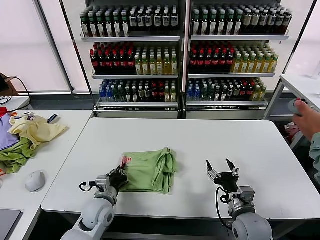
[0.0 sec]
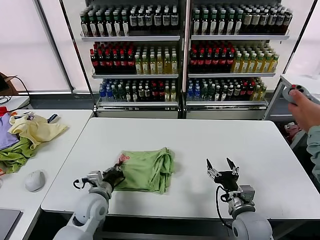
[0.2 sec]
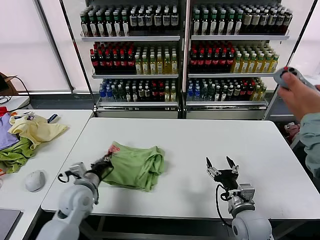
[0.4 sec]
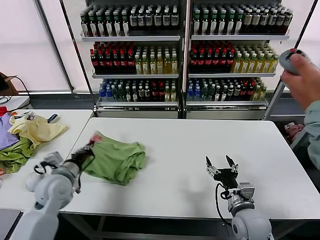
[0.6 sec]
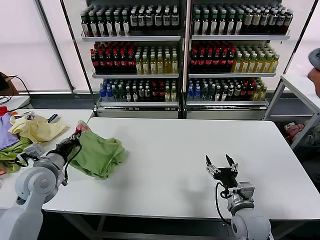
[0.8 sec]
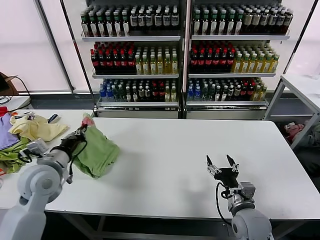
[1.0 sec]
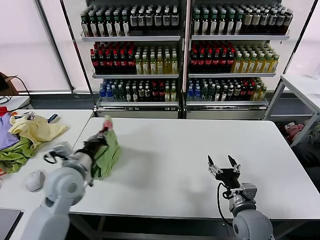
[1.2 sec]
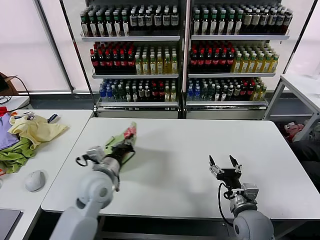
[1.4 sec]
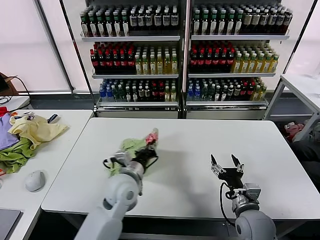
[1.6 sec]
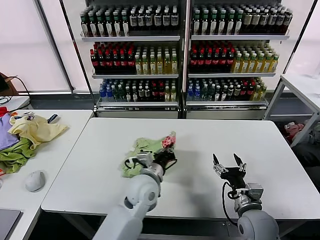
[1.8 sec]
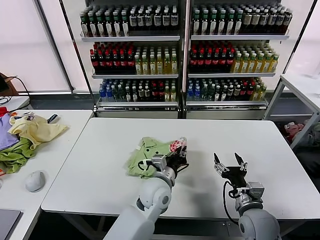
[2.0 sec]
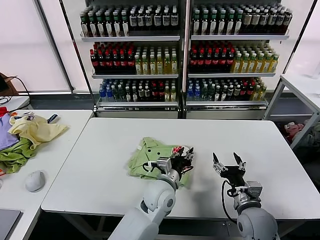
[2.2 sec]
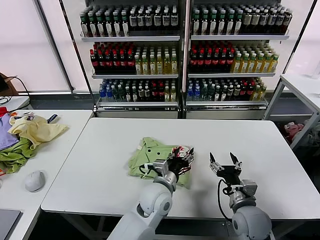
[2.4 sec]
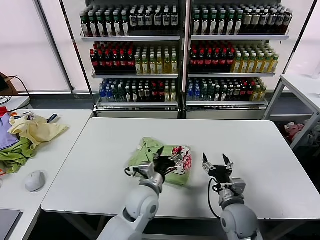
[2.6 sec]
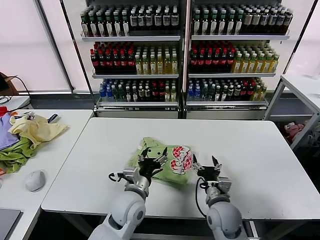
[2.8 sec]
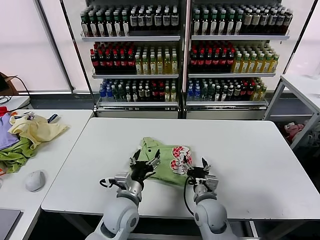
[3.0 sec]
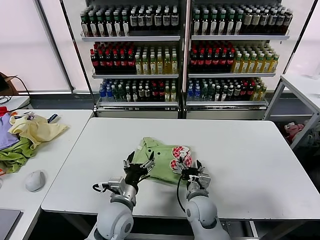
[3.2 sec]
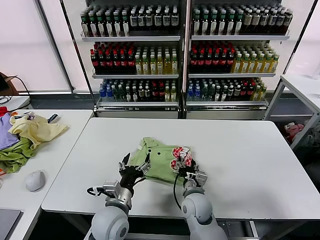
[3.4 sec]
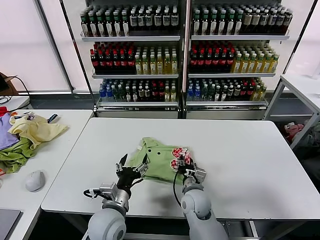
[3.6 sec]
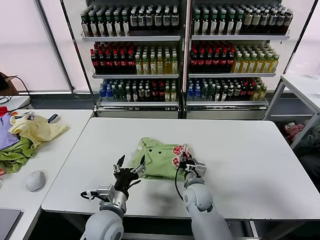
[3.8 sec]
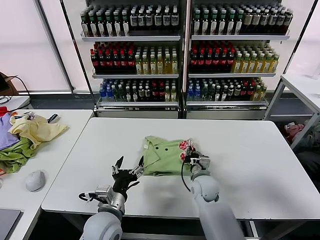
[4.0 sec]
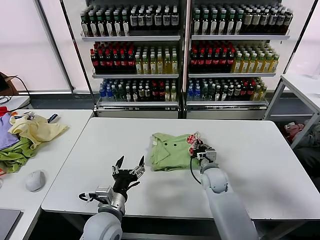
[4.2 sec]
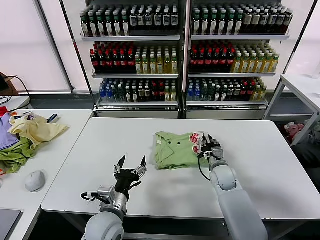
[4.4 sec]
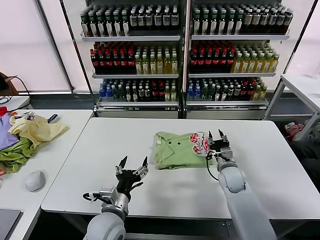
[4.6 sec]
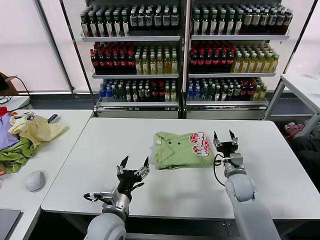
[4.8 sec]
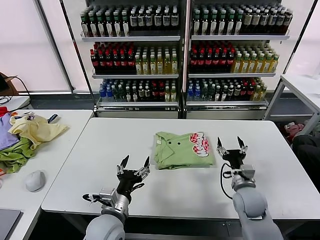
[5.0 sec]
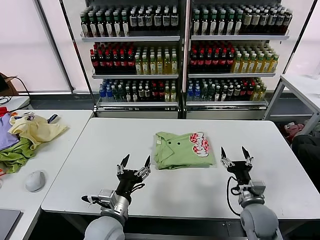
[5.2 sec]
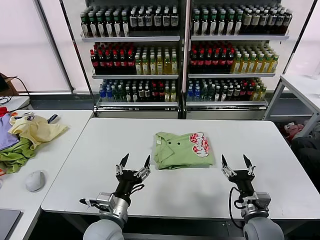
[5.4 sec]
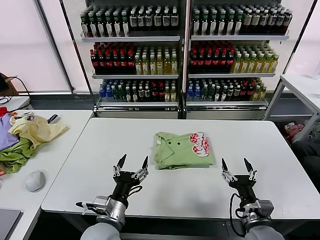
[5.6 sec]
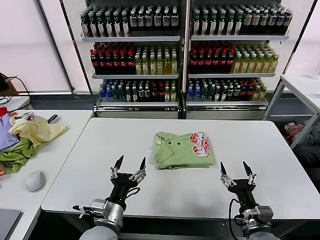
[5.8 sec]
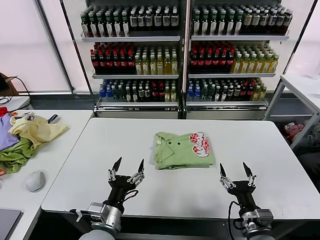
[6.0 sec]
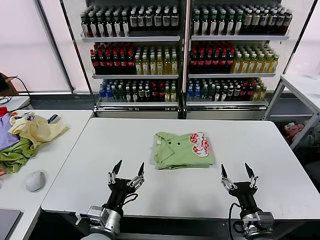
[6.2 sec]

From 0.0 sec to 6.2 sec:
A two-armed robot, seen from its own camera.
Task of the whole recording: fold and organize the clothes.
Step, from 0.0 sec to 2.2 sec: Flip the folded clothes over with left gripper.
Step, from 2.4 sec to 4.4 sec: Drag the clothes to the center of the table.
From 0.0 sec to 1.6 sec: The left gripper travels upward by some 10 cm, and travels to the left and back again, some 15 cm each way.
From 1.6 sec to 3.2 sec: The left gripper shifts about 5 cm backward, goes to the right and returns, approximately 15 cm each way, and opens its fingers, while the right gripper shifts approximately 15 cm to the left and forward.
From 3.2 sec to 4.6 sec: The right gripper moves to the right and forward, approximately 15 cm, and closes.
From 4.6 sec to 6.2 sec: The right gripper is displaced backward by about 25 cm, and opens up; the left gripper moves backward, approximately 5 cm.
